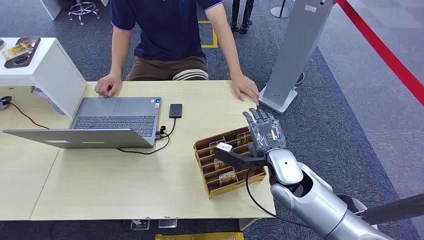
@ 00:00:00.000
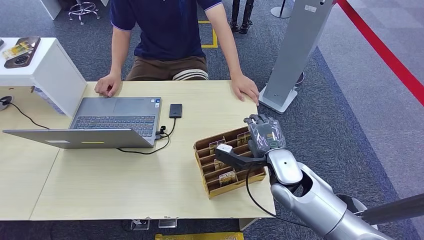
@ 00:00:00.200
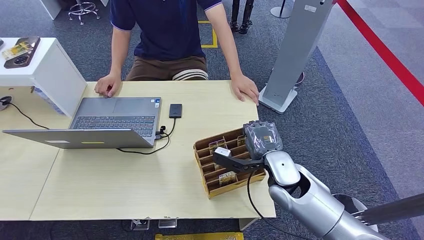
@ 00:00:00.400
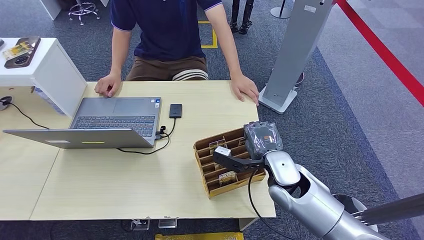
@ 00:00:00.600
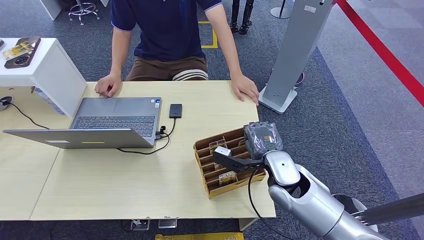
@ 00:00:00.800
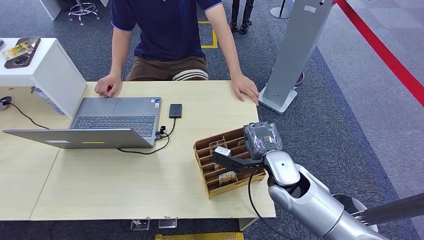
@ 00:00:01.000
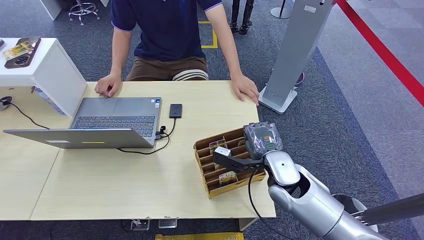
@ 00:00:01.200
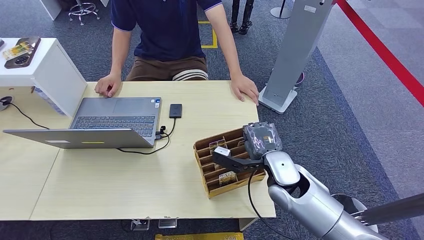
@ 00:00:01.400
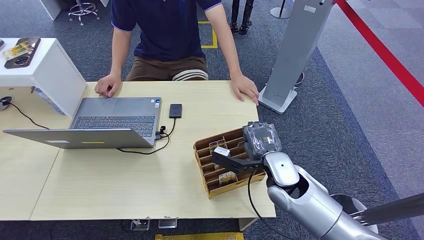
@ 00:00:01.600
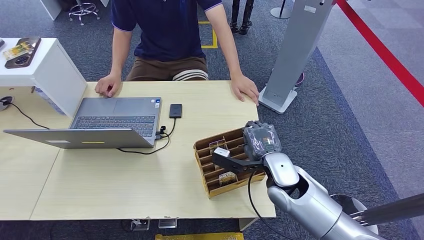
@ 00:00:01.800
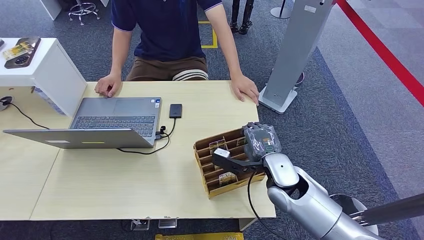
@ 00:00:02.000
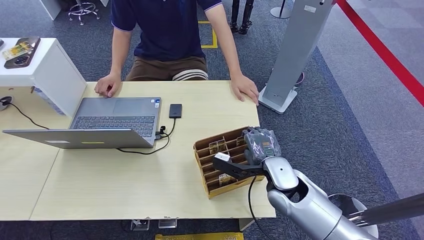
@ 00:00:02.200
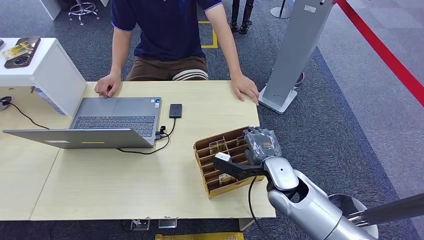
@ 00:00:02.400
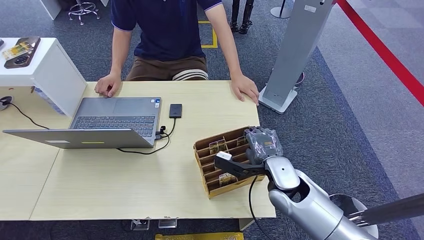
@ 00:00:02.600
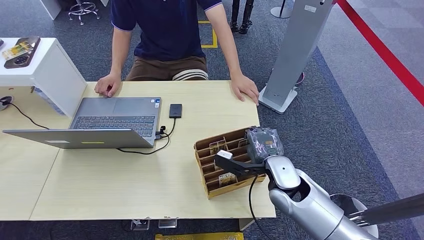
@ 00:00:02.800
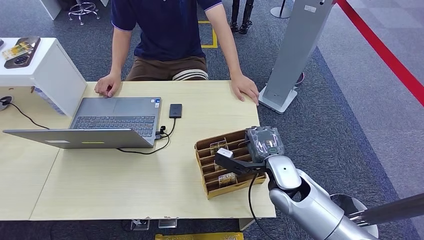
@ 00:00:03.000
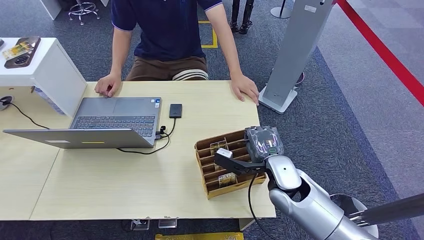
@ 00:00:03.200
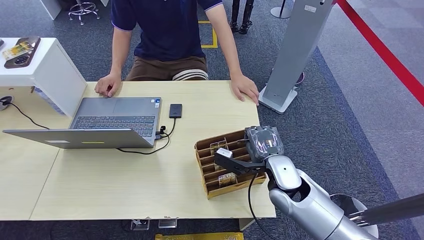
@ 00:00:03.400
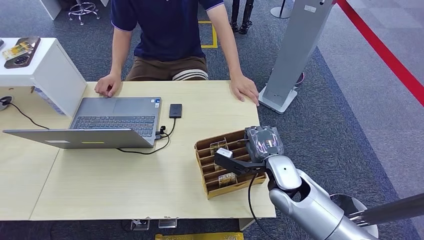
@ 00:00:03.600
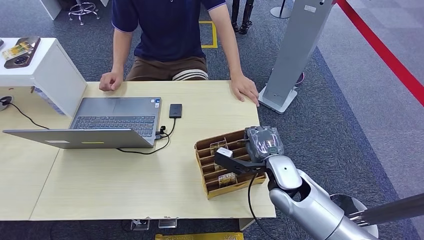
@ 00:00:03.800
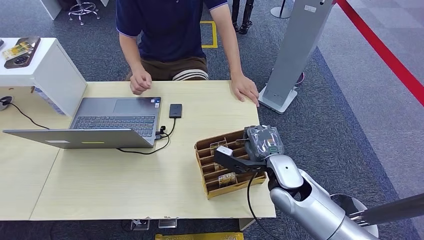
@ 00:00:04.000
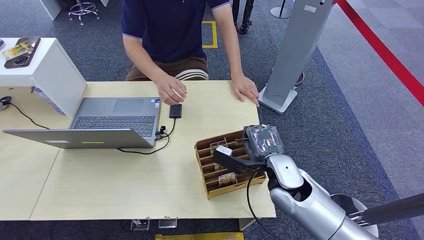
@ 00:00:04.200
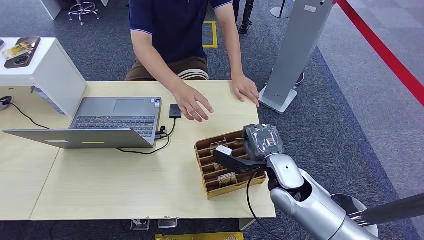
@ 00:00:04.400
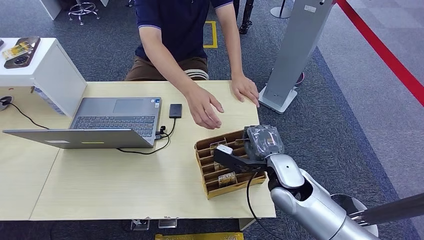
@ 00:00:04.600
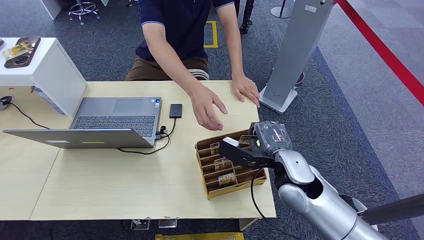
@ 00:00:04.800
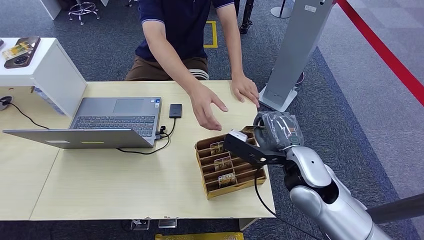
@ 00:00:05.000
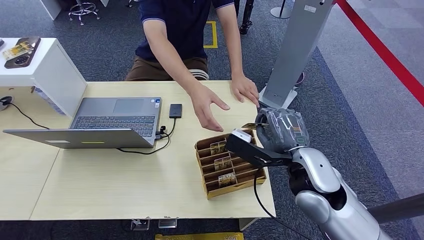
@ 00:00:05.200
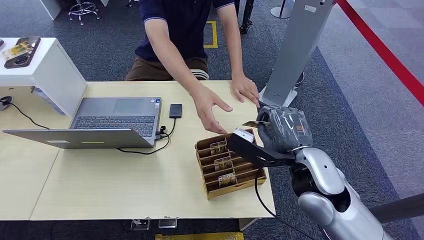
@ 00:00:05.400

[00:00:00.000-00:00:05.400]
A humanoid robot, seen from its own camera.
Step, 00:00:00.000 to 00:00:02.800: Pick up the key card from the card box.
Step, 00:00:03.000 to 00:00:05.200: Hand the key card to the target.
00:00:01.400 to 00:00:04.000: There are only small adjustments of the hands.
00:00:04.000 to 00:00:05.400: The right hand is displaced upward by about 10 cm.
